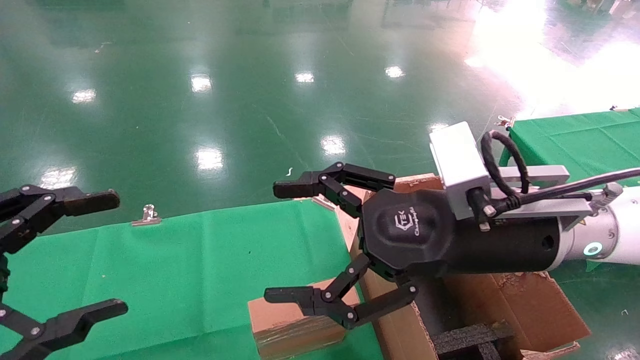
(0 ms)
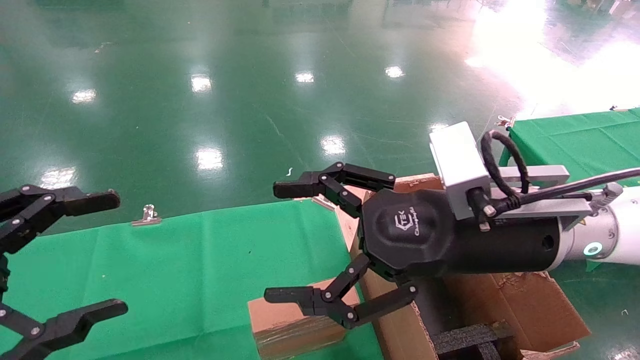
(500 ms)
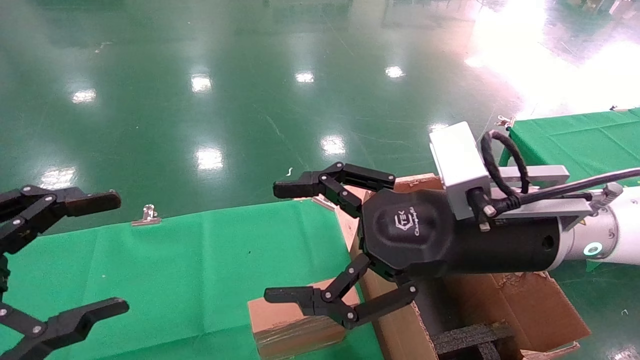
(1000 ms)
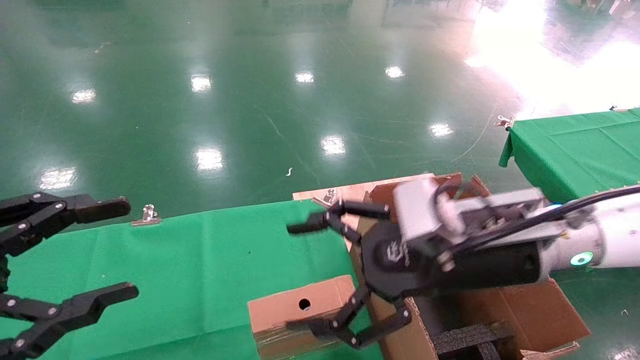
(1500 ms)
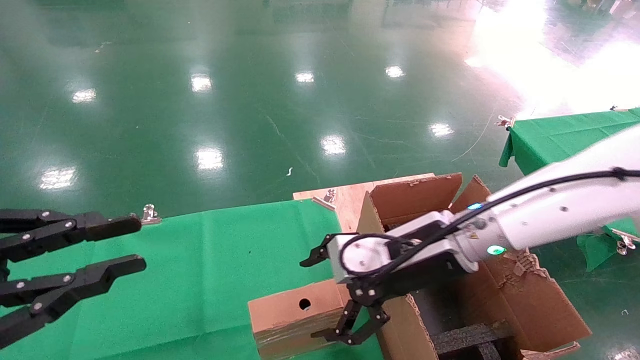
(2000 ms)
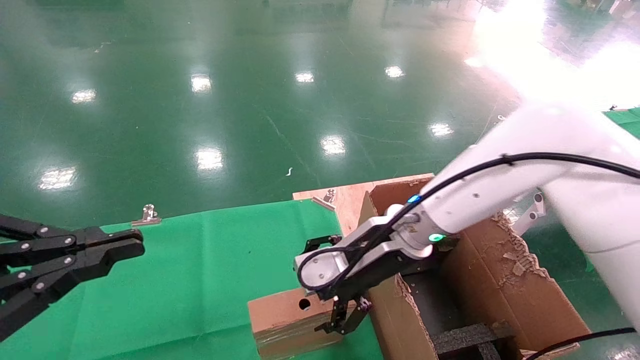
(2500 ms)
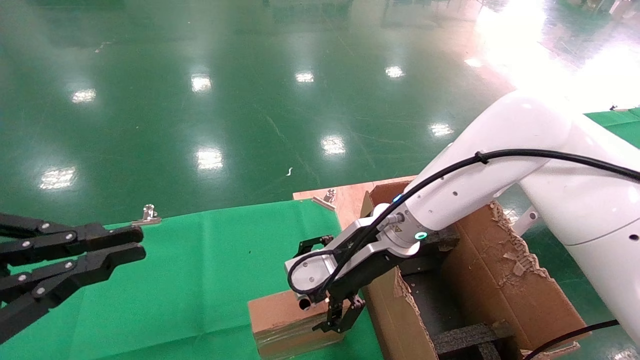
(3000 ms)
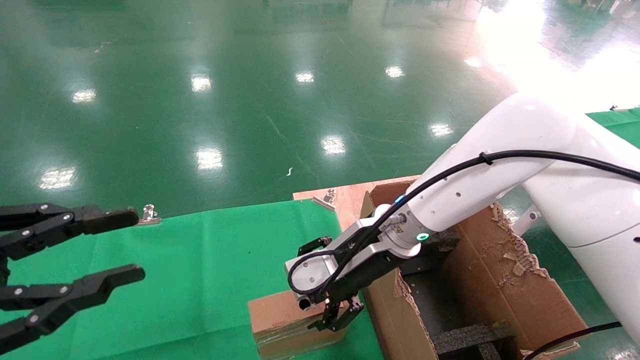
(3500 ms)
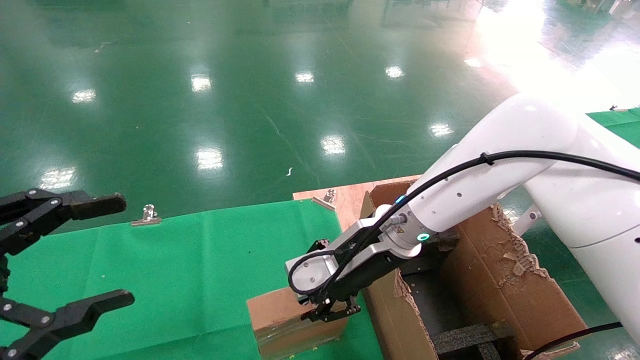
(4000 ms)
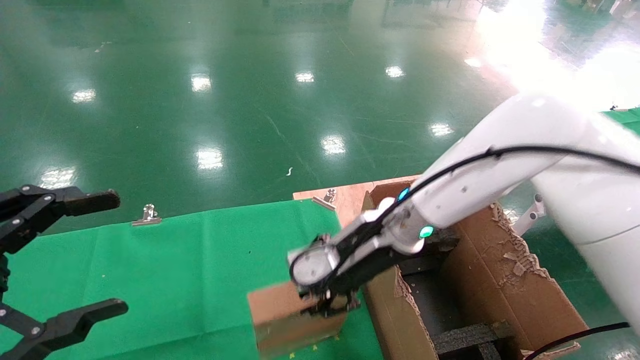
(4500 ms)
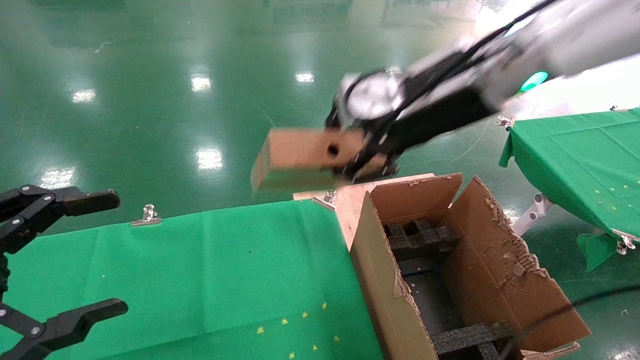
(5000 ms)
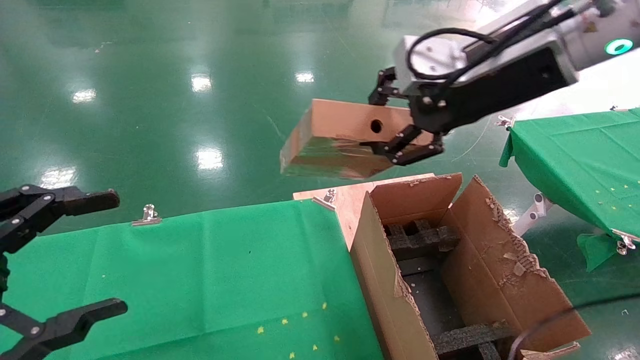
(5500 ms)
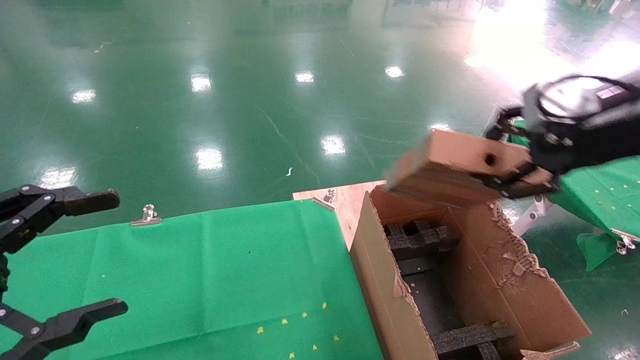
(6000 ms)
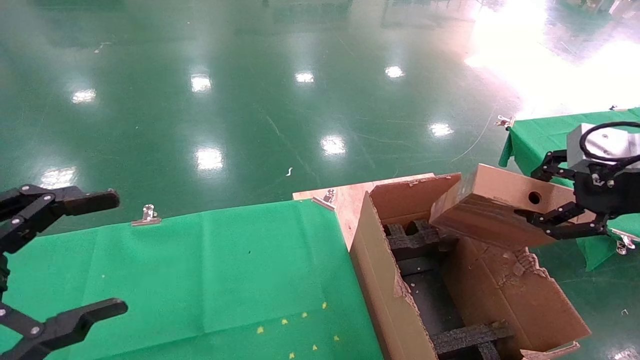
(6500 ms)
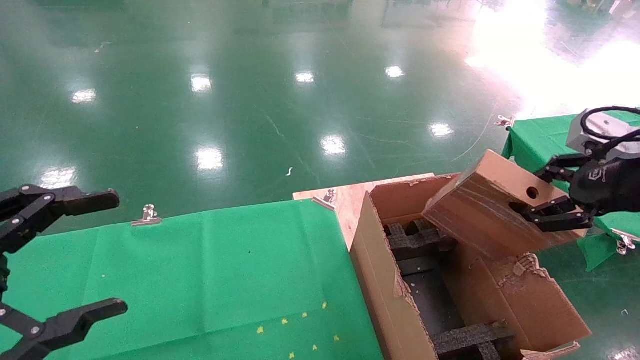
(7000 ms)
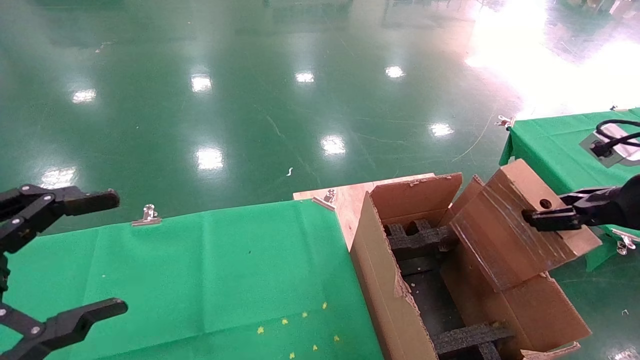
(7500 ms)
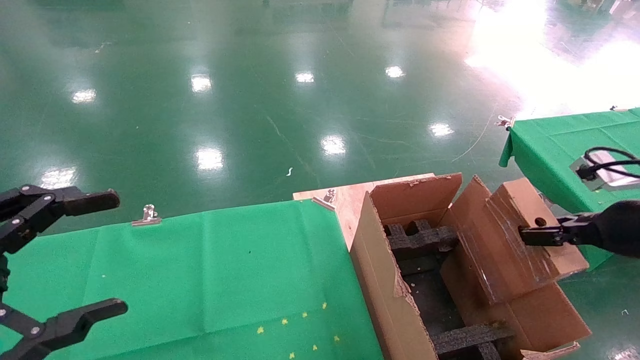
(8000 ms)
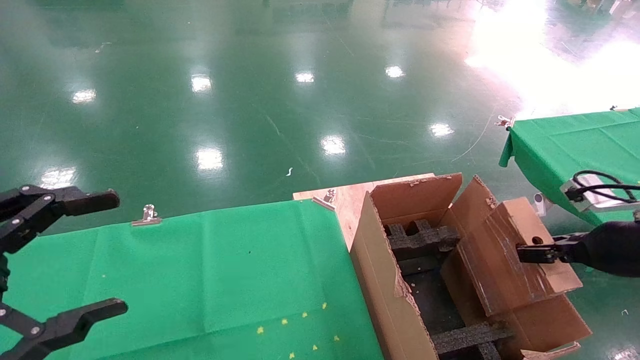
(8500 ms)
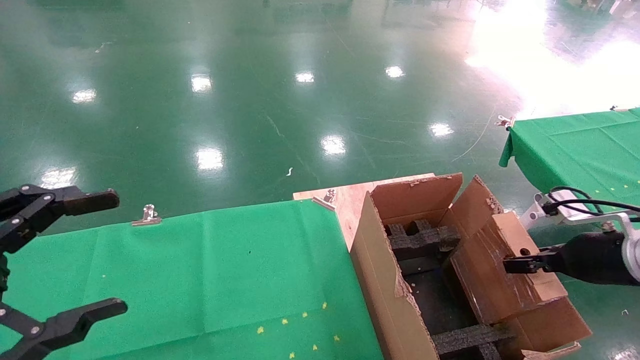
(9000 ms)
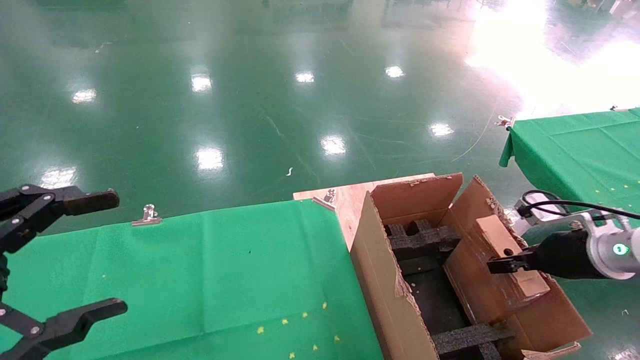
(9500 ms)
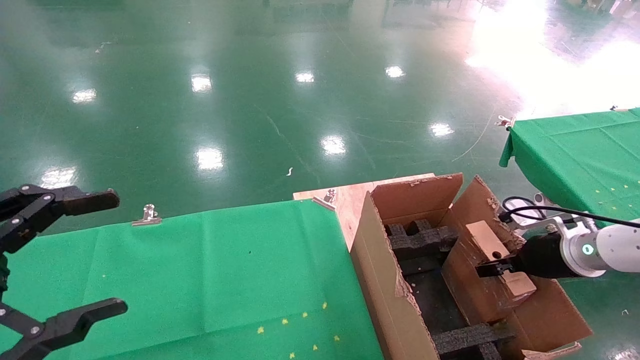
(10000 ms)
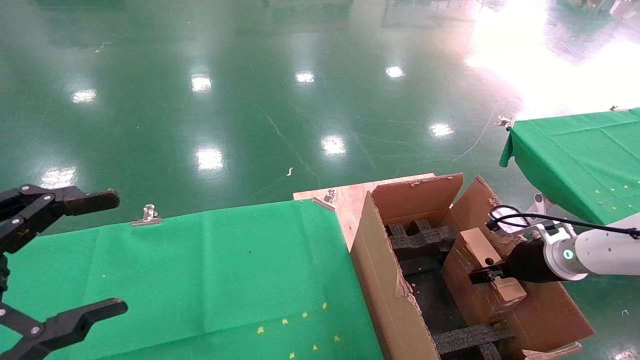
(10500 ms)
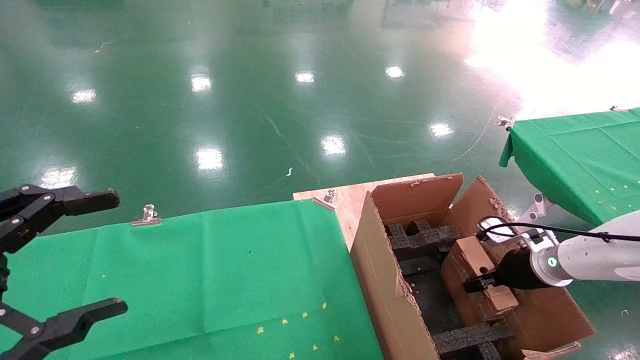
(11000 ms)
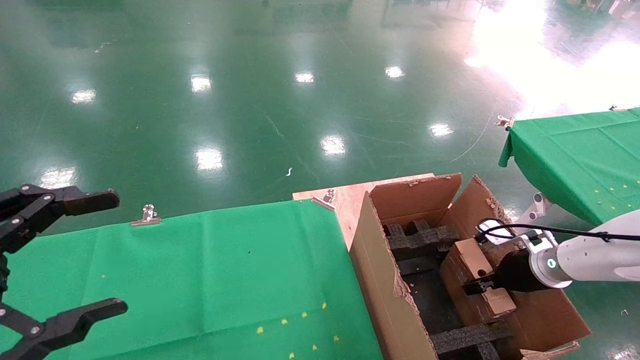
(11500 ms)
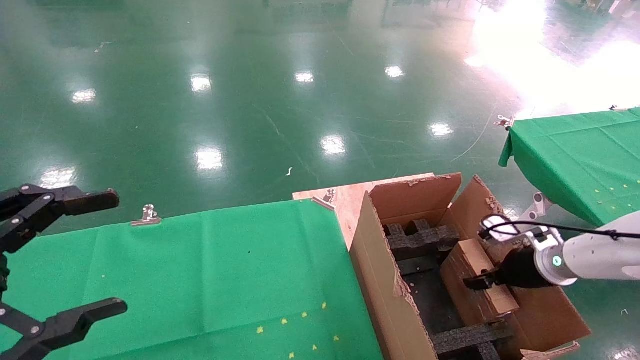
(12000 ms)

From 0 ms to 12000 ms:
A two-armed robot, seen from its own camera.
Task of the whole recording: using a robotic arm to pick up a cardboard box and palace it the carton.
Step, from 2000 ms to 3500 ms: Pick up the mouse and the power cord paper box.
From 0 ms to 2000 ms: The right gripper heads forward and downward, covering about 10 cm, while the left gripper closes.
From 2000 ms to 4000 ms: The right gripper moves to the left, approximately 5 cm, and closes up, while the left gripper opens its fingers.
From 4000 ms to 6000 ms: The right gripper shifts some 30 cm to the right, upward and backward, and closes up.
From 6000 ms to 8000 ms: The right gripper goes some 15 cm downward and to the right.
From 8000 ms to 10000 ms: The right gripper goes approximately 15 cm downward and forward.
From 10000 ms to 12000 ms: The right gripper opens up.

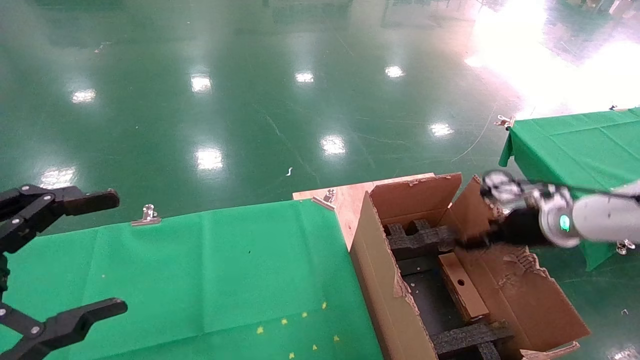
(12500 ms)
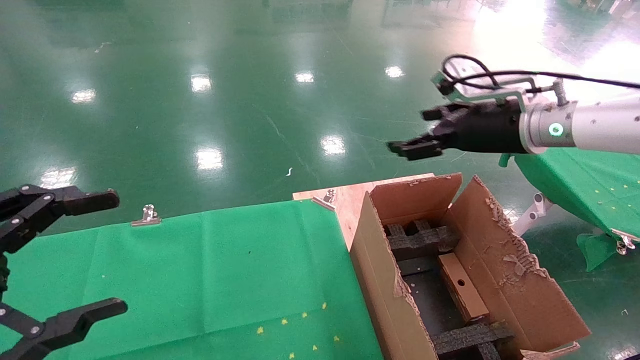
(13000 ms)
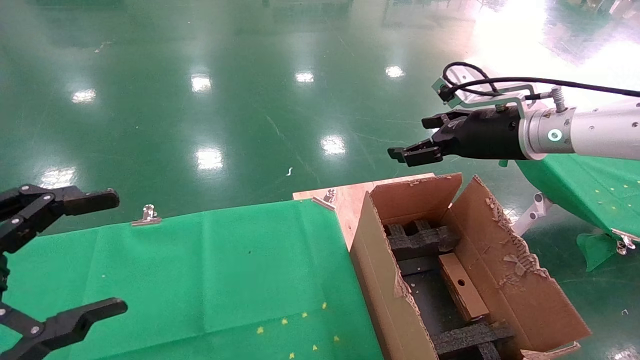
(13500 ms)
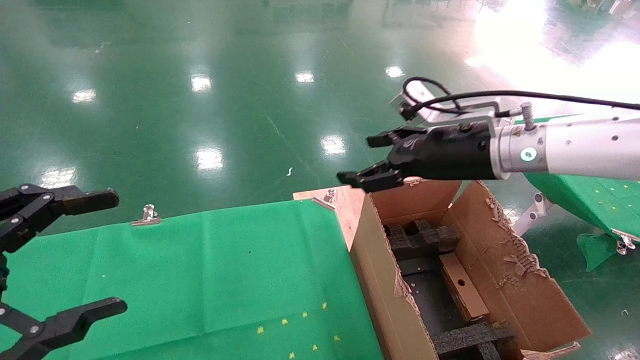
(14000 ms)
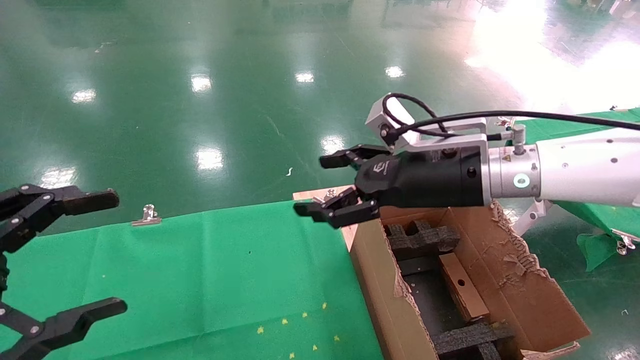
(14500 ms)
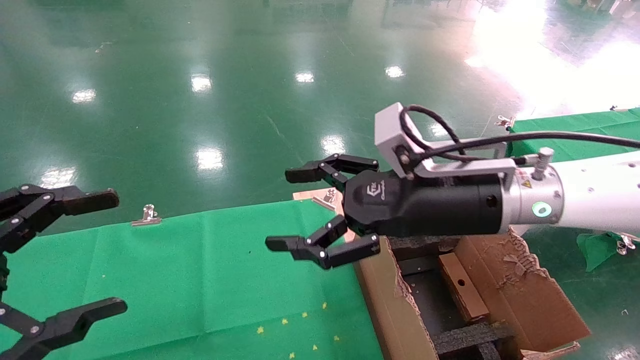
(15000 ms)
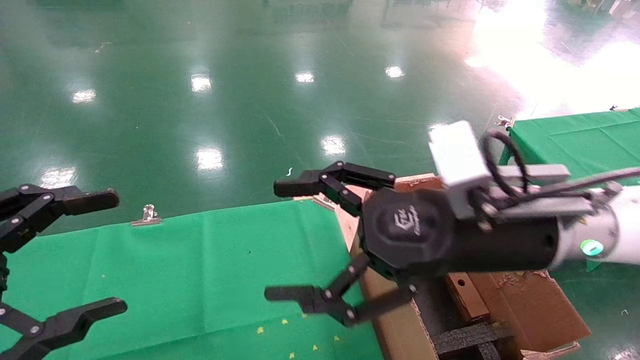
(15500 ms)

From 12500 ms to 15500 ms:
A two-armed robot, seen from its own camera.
Task of the whole recording: using a robotic arm to pick up a cardboard box and palace it the carton.
From 12500 ms to 14000 ms: The right gripper shifts some 20 cm to the left and upward.
From 14000 ms to 15500 ms: The right gripper moves backward and to the left, about 15 cm.

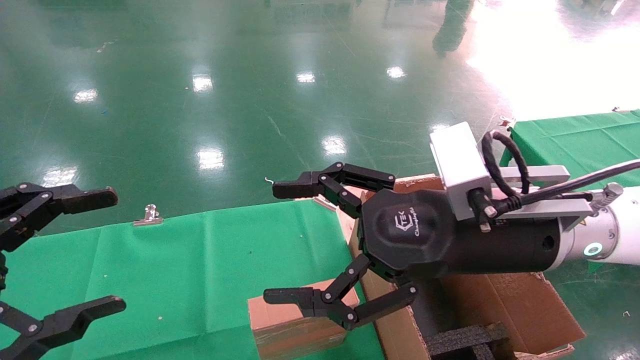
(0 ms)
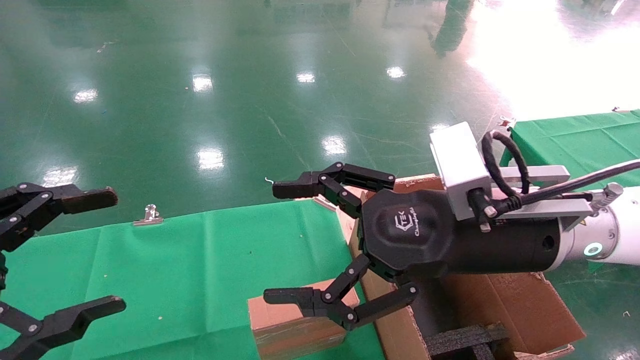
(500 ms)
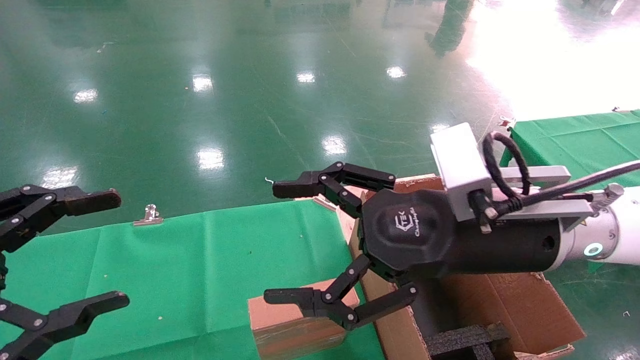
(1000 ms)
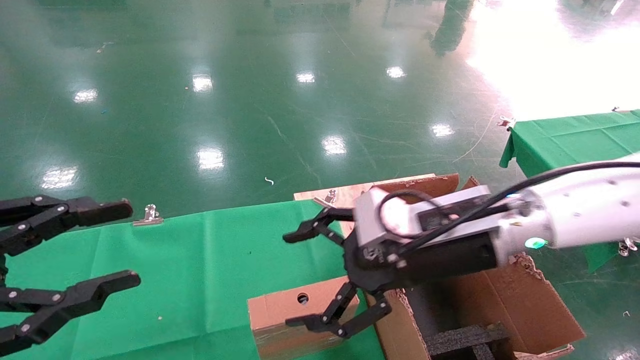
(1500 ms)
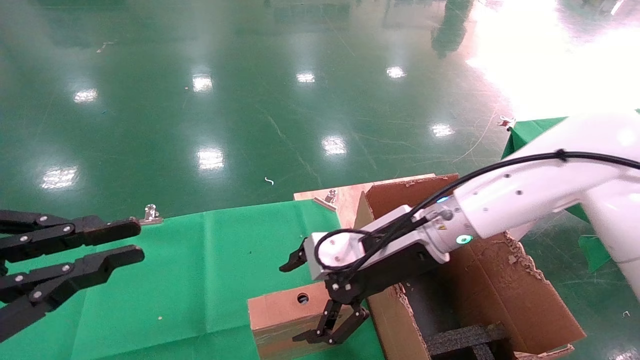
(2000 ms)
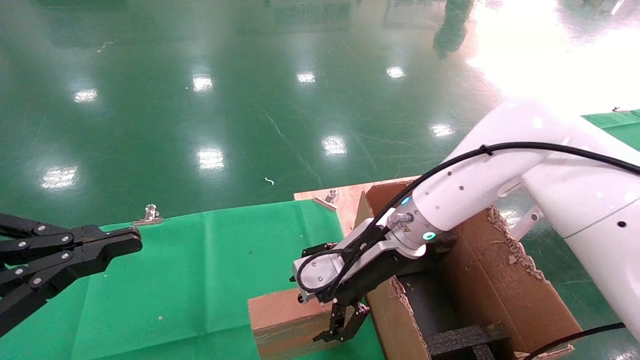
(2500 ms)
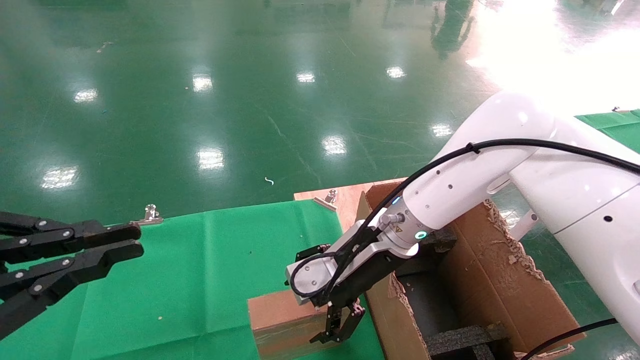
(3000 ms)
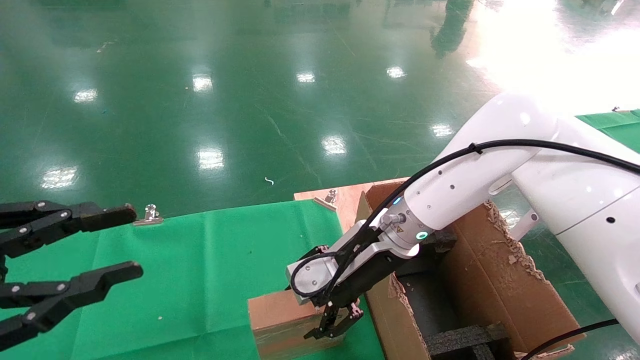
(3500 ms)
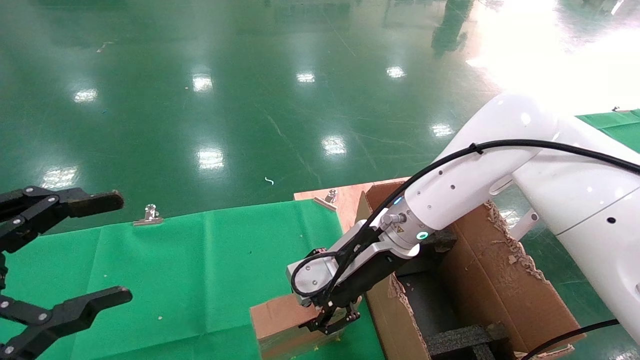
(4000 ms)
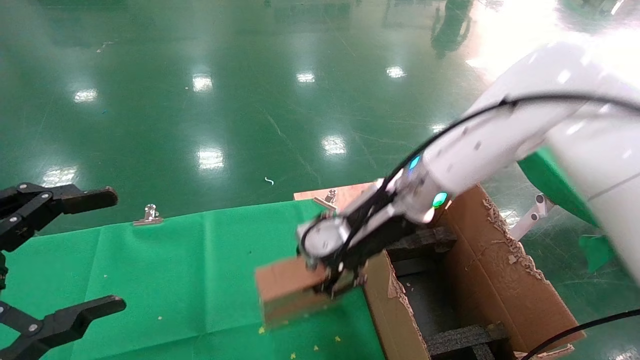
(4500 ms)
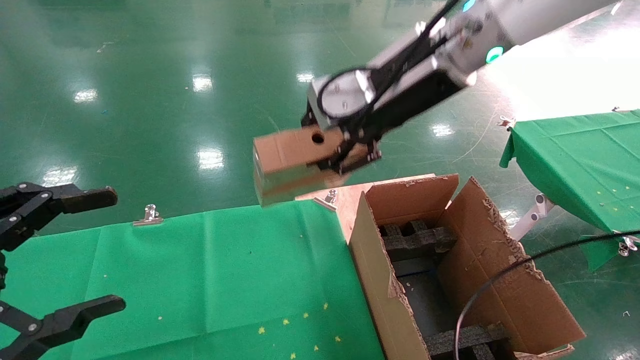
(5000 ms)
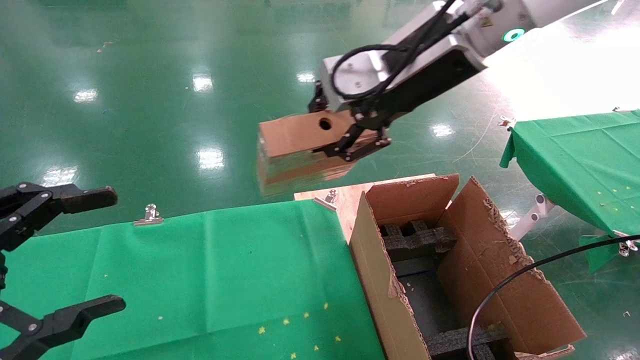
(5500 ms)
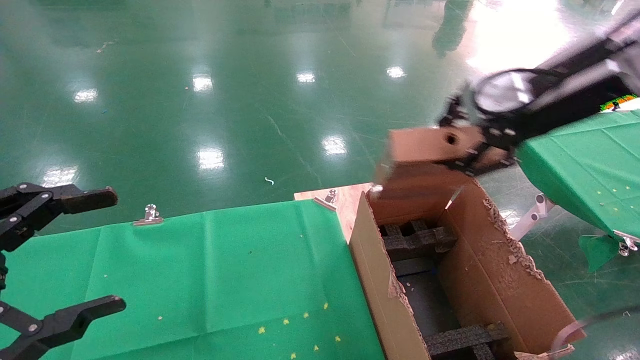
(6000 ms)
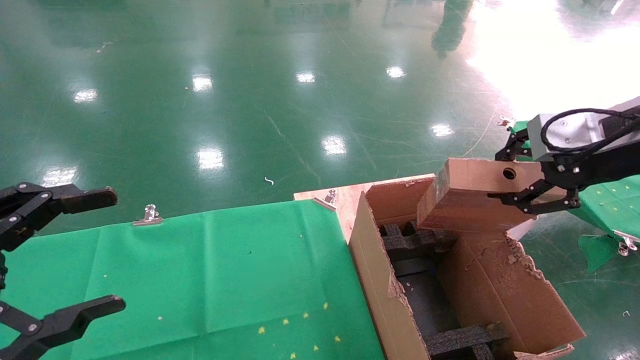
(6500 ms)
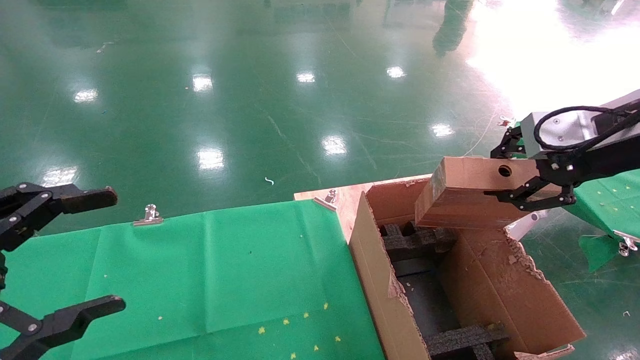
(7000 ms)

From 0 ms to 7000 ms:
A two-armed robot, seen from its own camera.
Task of the whole recording: using a robotic arm to pick up a cardboard box and palace it the carton.
Step, from 1500 ms to 3500 ms: Pick up the mouse and the power cord paper box.
From 0 ms to 2000 ms: The right gripper heads forward and downward, covering some 10 cm. Meanwhile the left gripper closes up.
From 2000 ms to 3500 ms: The grippers stay close to where they were, moving slightly.
From 3500 ms to 5000 ms: The left gripper opens up. The right gripper is displaced upward by about 20 cm, and closes its fingers.
From 5000 ms to 7000 ms: The right gripper is displaced to the right and backward by roughly 25 cm.
